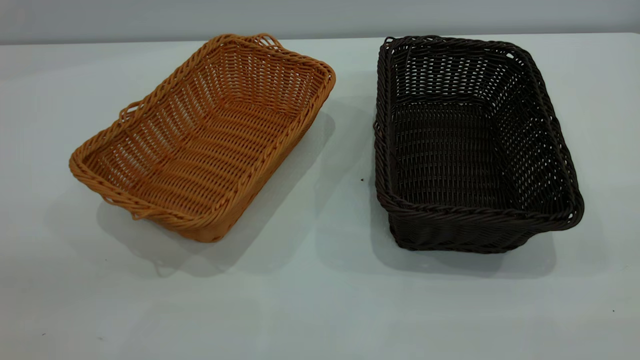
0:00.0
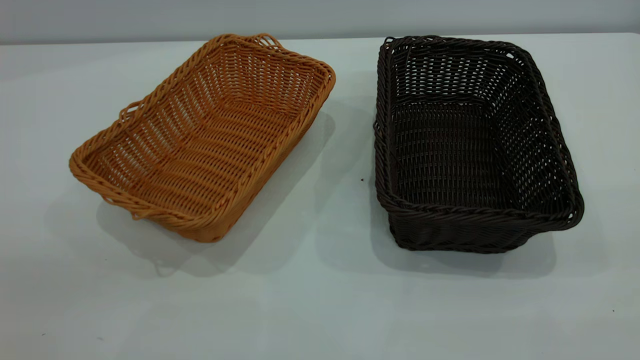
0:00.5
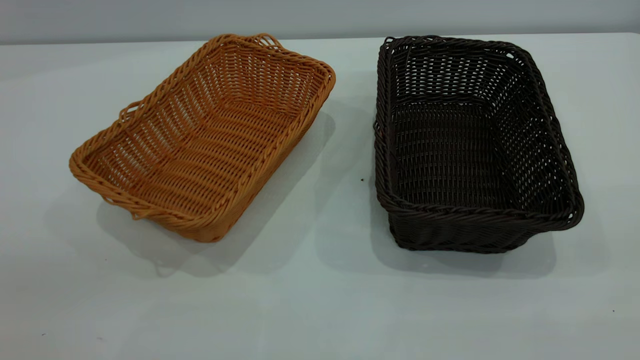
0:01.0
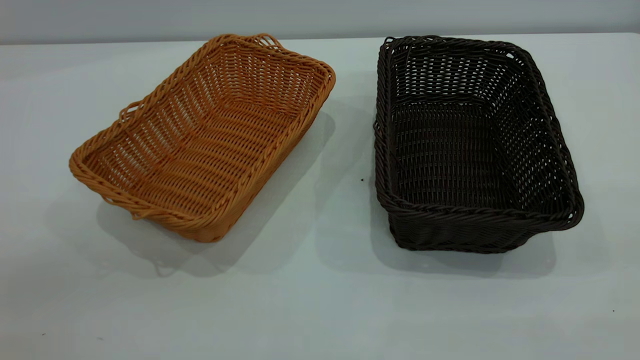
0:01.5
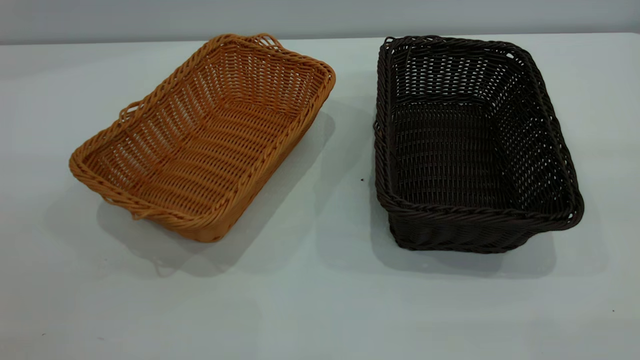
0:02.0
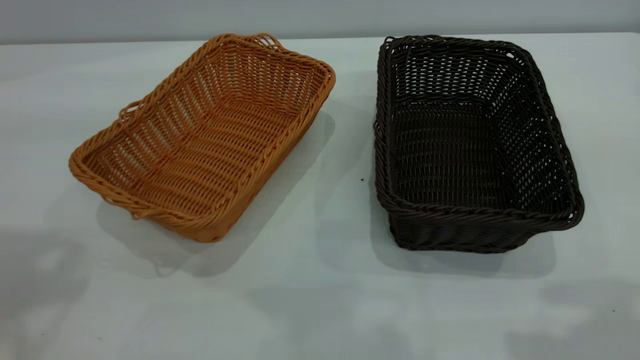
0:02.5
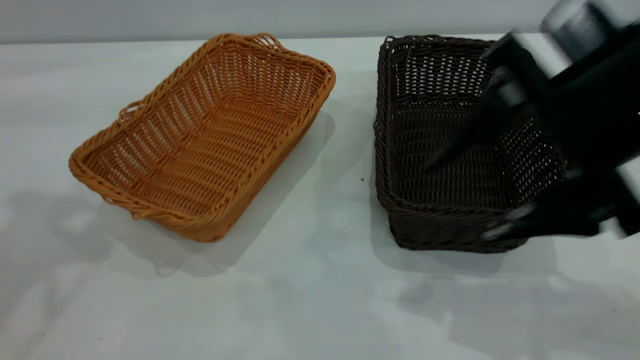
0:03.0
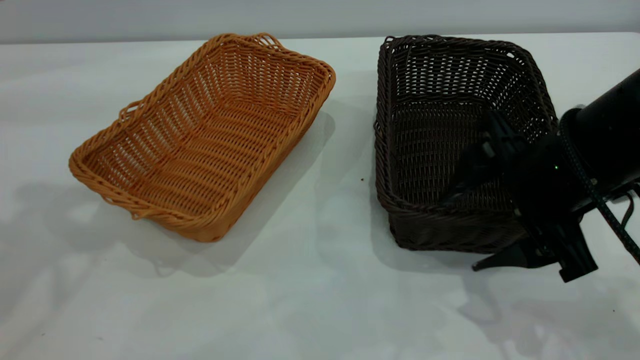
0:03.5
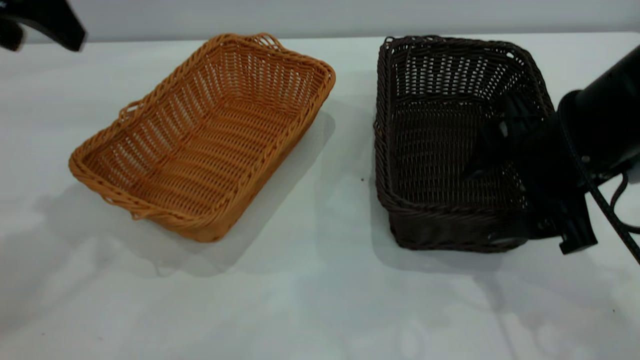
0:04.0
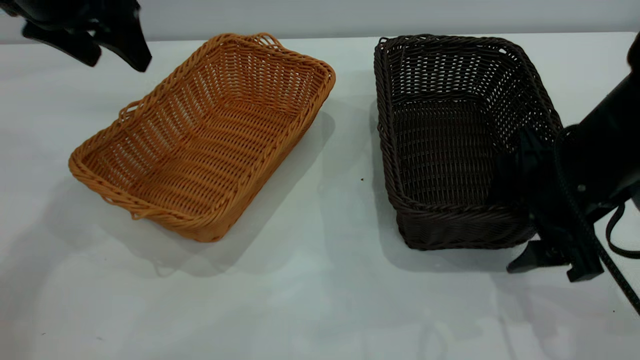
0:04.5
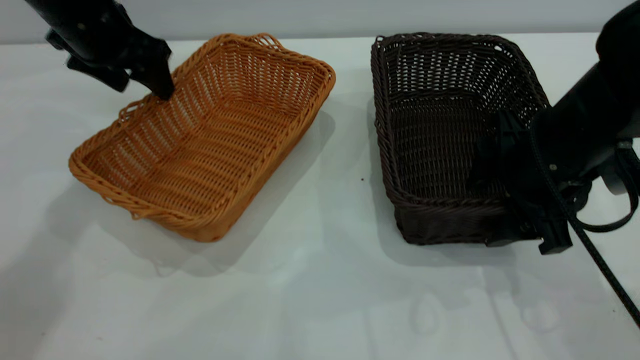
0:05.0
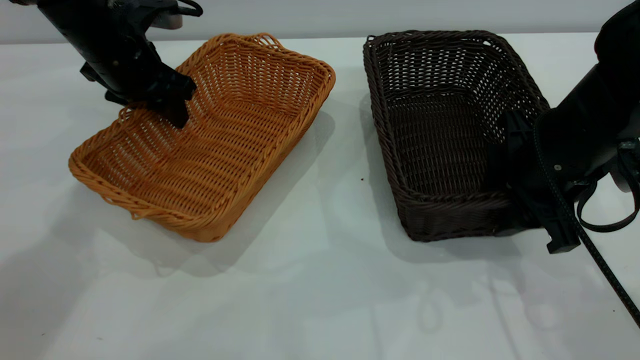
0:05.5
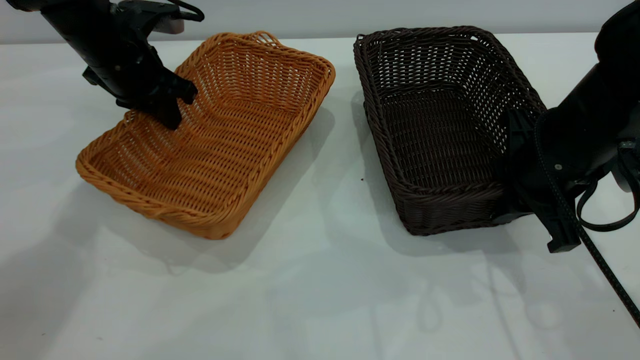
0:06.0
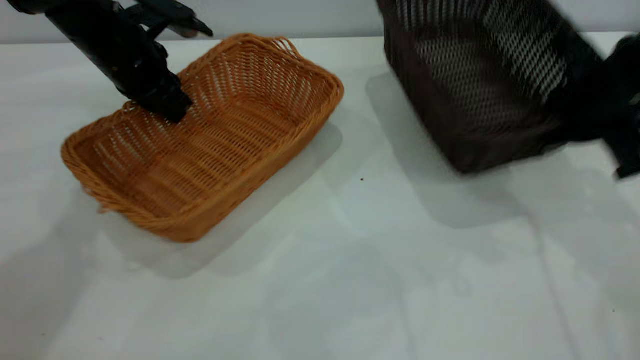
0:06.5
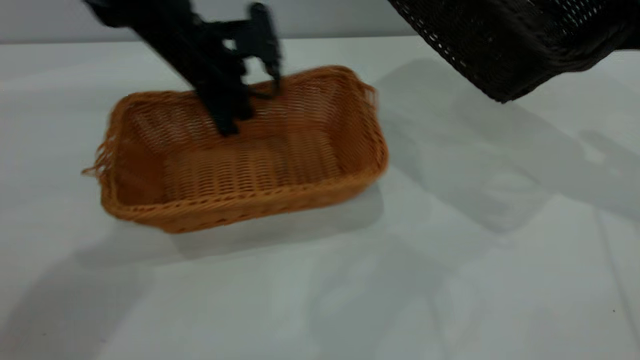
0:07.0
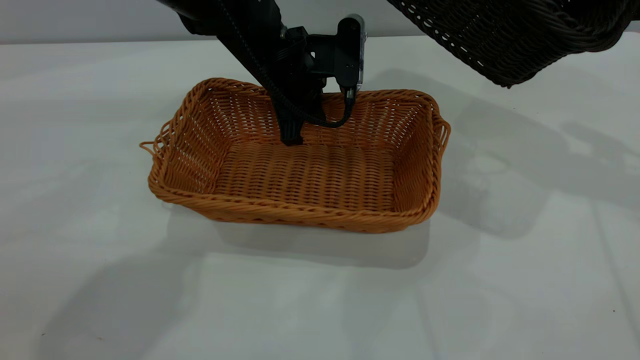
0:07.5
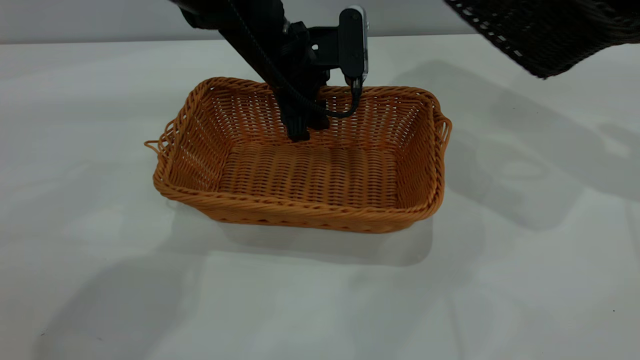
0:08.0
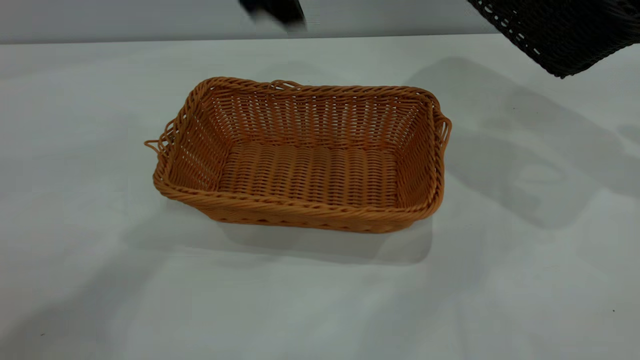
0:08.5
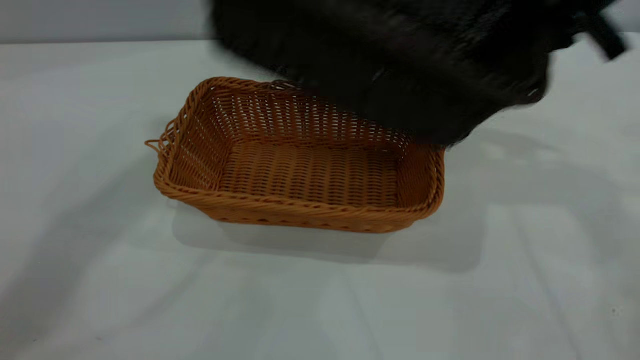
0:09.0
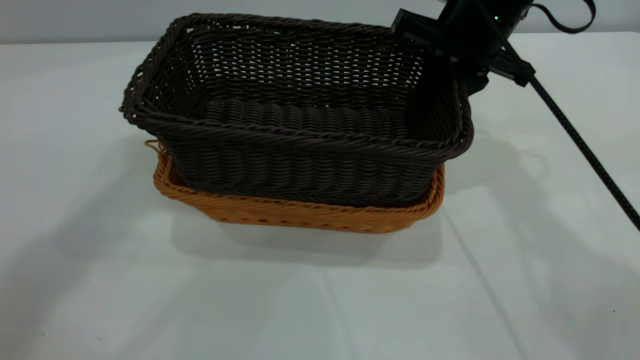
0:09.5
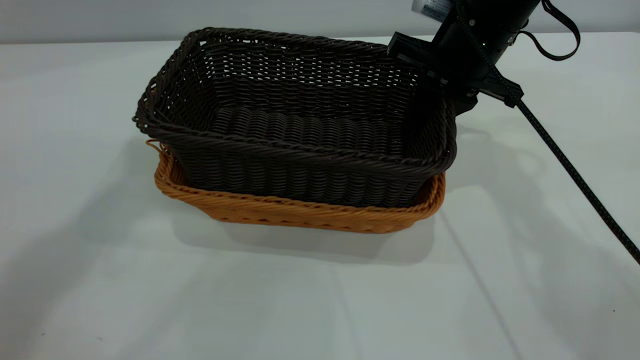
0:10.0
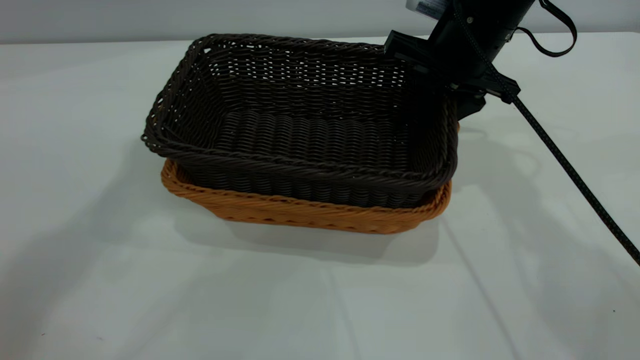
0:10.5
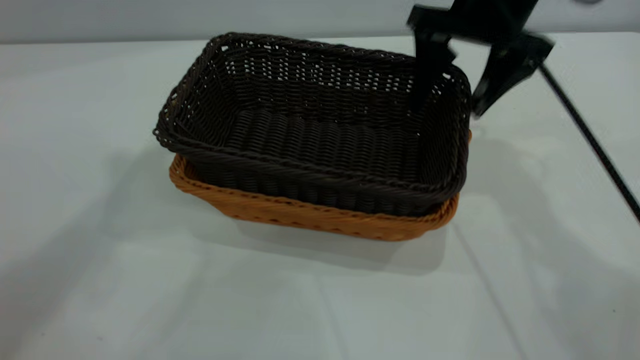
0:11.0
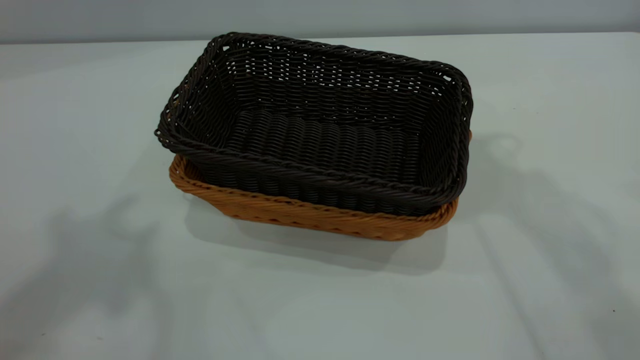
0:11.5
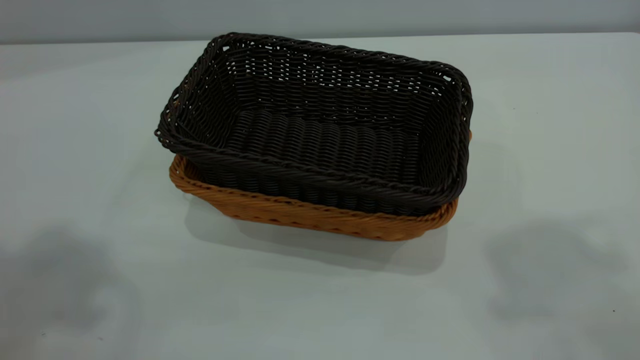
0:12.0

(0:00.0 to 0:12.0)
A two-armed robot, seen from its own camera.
Task of the whole recording: the left gripper grasp the brown basket and place it in the center of the table, the right gripper grasp the black basket and place it inside the brown one.
Step, 0:00.0 - 0:06.5: Pick up the light basket with the right gripper.
Step, 0:07.0 - 0:08.0: Place the light-colored basket in the center.
Step, 0:08.5 - 0:11.0: Place the dark basket on top of the light basket.
0:02.0 - 0:04.0: The right gripper shifts some 35 cm downward, forward and to the left. The left gripper shifts about 30 cm forward and downward.
0:04.0 - 0:06.0: The right gripper closes its fingers. Meanwhile the left gripper moves downward and forward, roughly 20 cm, and closes.
0:06.0 - 0:08.0: The left gripper is displaced to the right by about 20 cm, and opens its fingers; the right gripper is displaced to the right, upward and forward by some 25 cm.
0:08.0 - 0:10.0: The right gripper shifts some 25 cm to the left and downward. Meanwhile the left gripper moves upward, approximately 40 cm.
0:10.0 - 0:12.0: The right gripper heads upward and backward, covering roughly 40 cm, and opens its fingers. Meanwhile the left gripper heads backward and to the left, covering some 15 cm.
